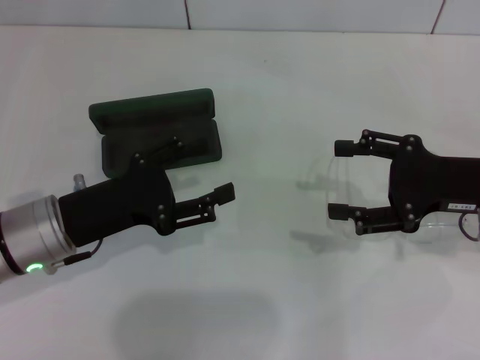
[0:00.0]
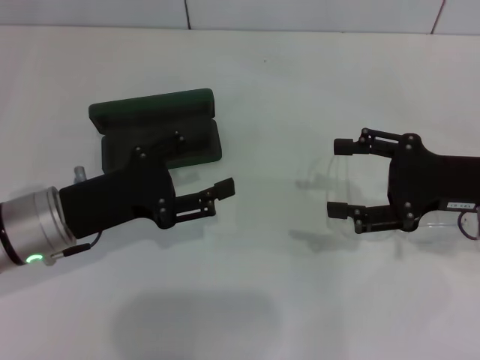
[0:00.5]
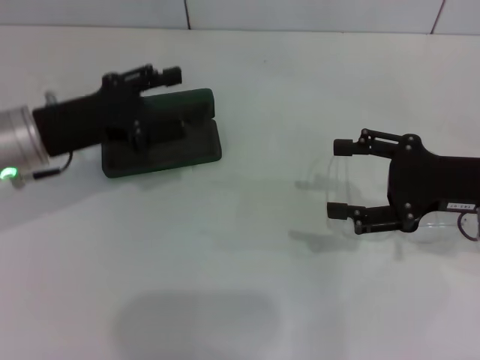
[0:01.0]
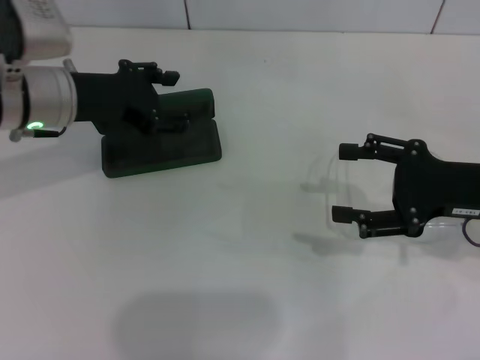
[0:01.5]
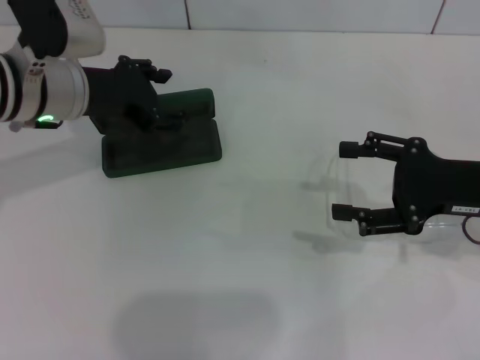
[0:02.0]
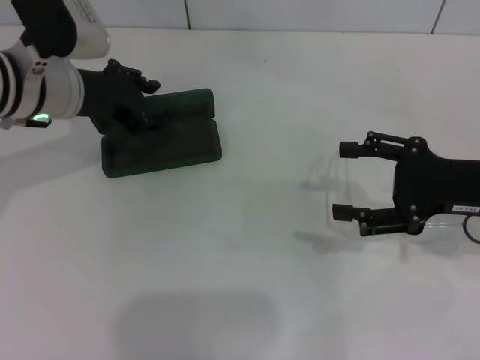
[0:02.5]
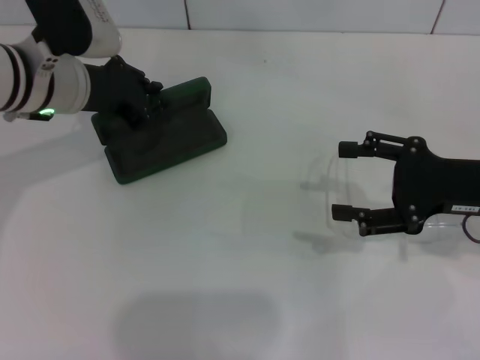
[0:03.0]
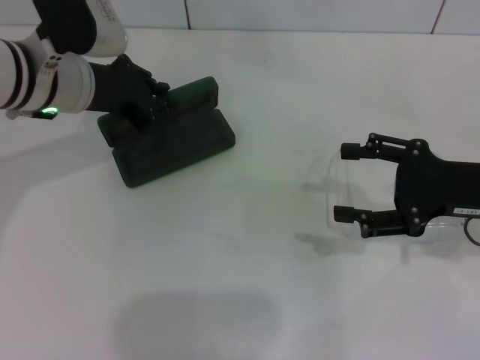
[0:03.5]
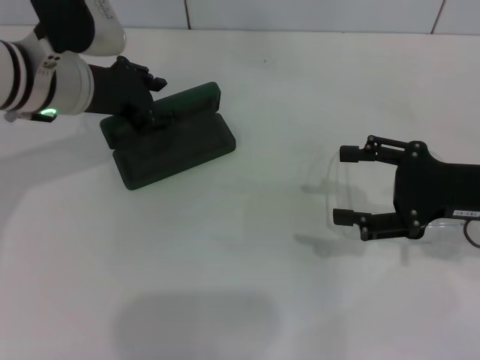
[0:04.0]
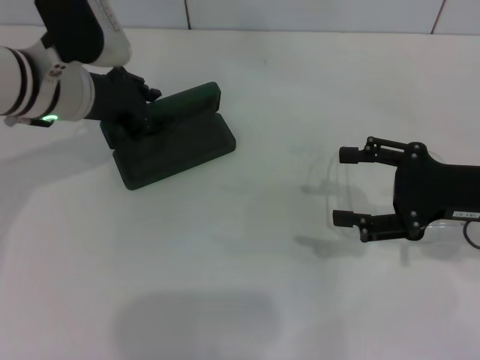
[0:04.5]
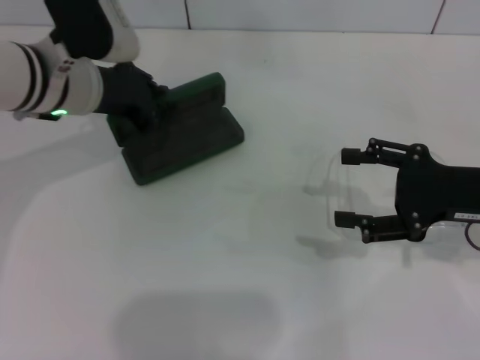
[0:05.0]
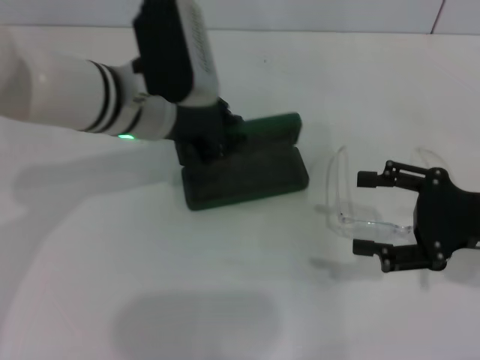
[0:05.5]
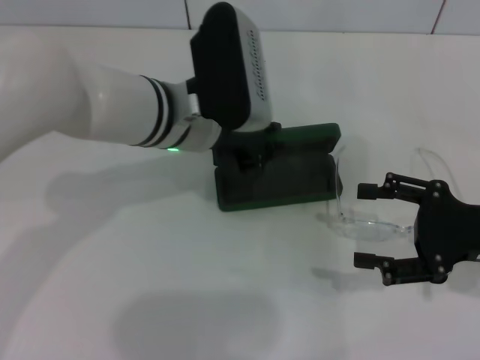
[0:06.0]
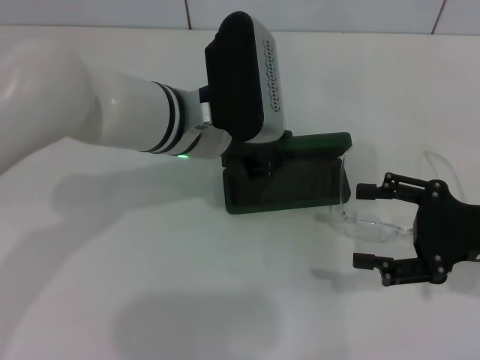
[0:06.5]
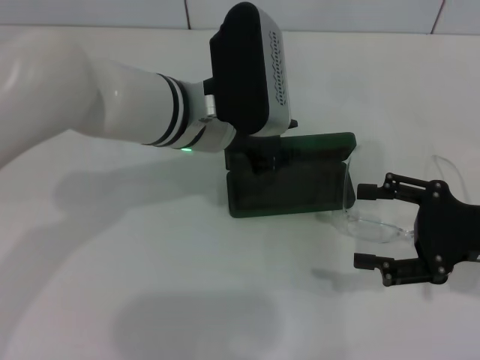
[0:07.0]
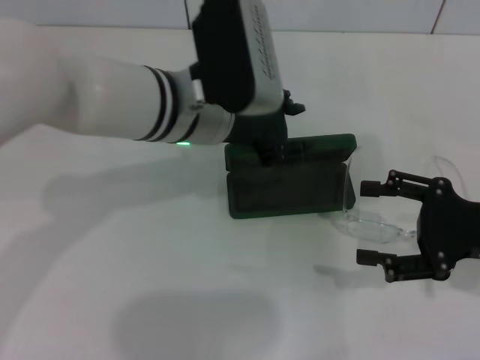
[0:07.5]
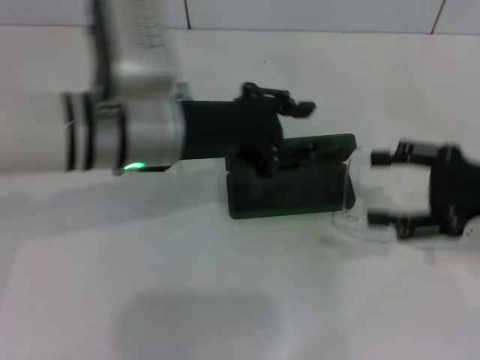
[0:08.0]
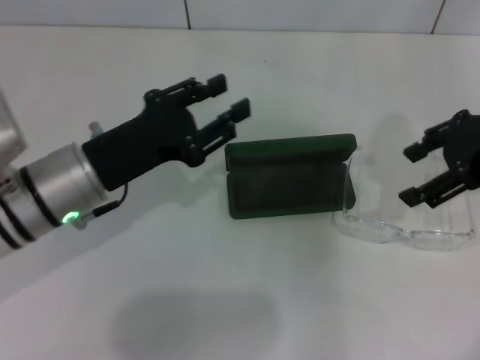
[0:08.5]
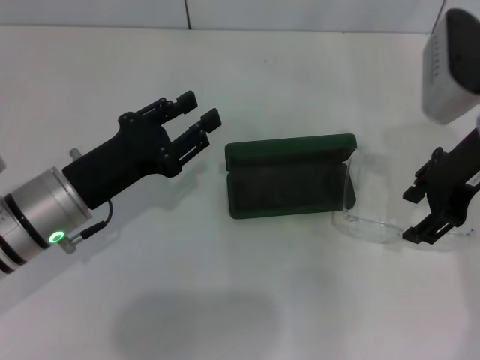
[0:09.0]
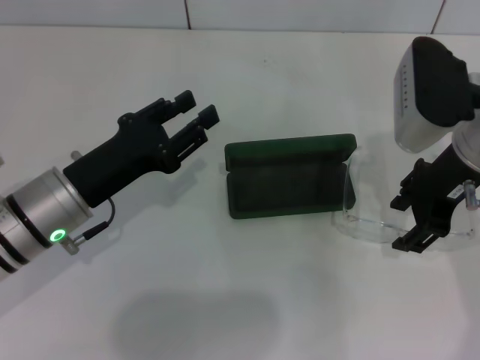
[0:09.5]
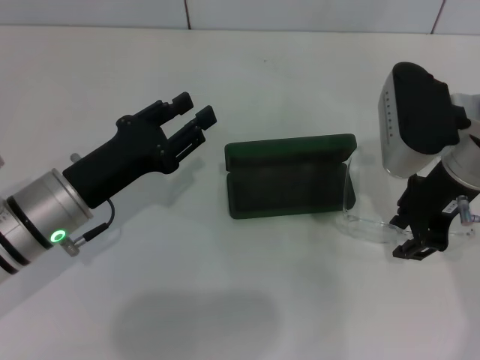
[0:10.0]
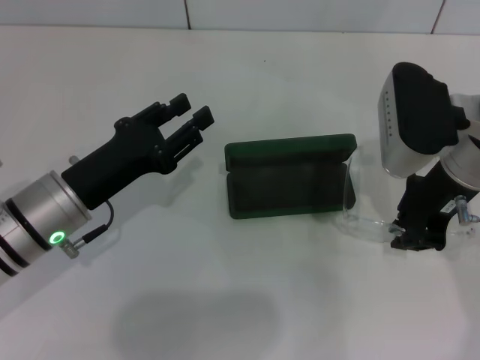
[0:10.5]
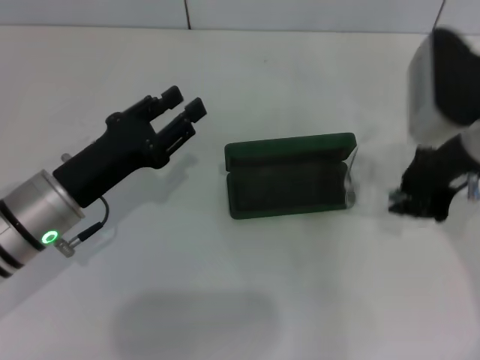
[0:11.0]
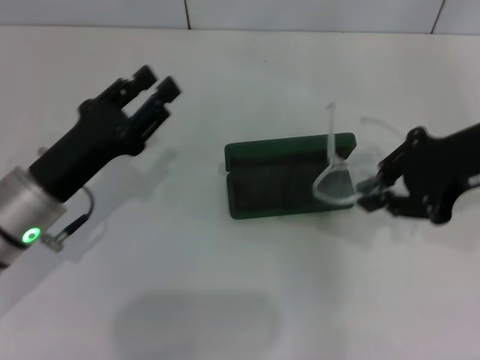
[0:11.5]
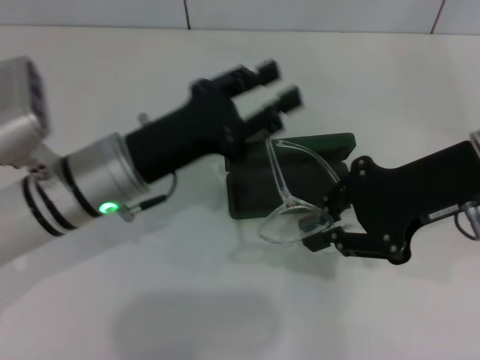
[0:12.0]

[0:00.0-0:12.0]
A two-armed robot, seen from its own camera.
Step, 0:00.0 to 0:03.0: Grab the glasses case with your left hand.
Step, 0:03.5 to 0:07.0: Place the glasses case in the center of the table with your left hand.
Step, 0:07.5 to 0:10.5: Grab the eyeglass frame with your right hand.
0:00.0 to 0:02.0: The left gripper shifts some 15 cm forward and upward.
0:02.0 to 0:04.0: The left gripper closes.
0:04.0 to 0:06.0: The left gripper is displaced to the right by about 10 cm, and closes its fingers.
0:06.0 to 0:08.0: The left gripper moves about 5 cm, and opens up.
0:08.0 to 0:10.0: The right gripper moves to the left and forward, approximately 10 cm, while the left gripper goes about 15 cm downward and to the left.
0:10.0 to 0:12.0: The right gripper shifts by about 5 cm, and closes its fingers. The left gripper goes roughly 5 cm to the right.

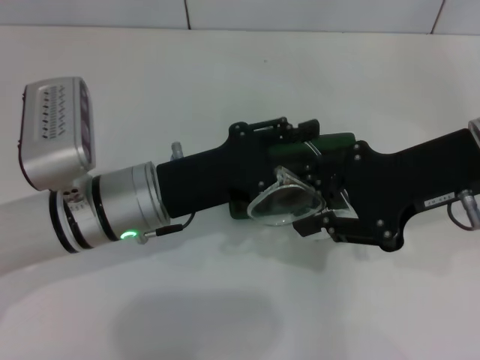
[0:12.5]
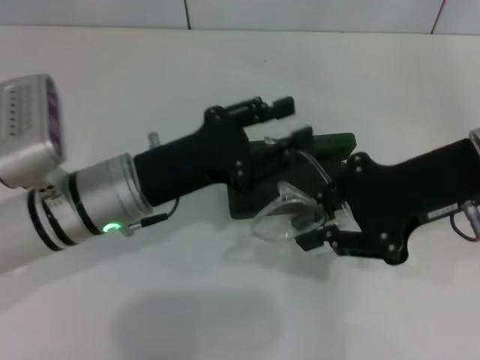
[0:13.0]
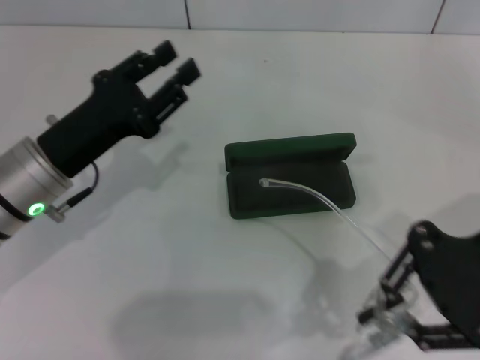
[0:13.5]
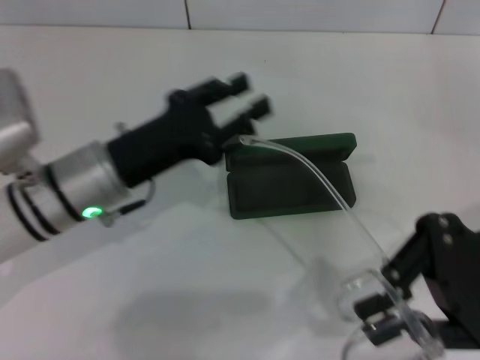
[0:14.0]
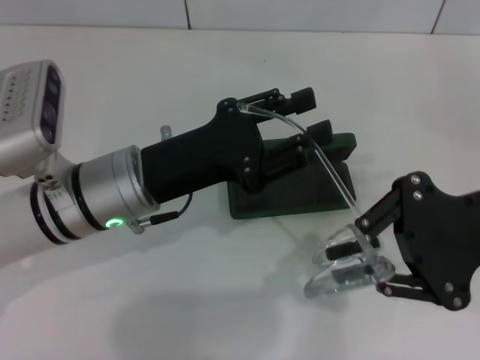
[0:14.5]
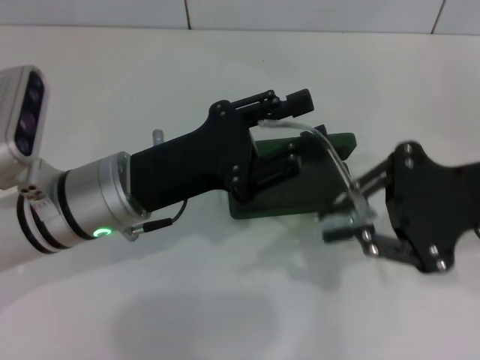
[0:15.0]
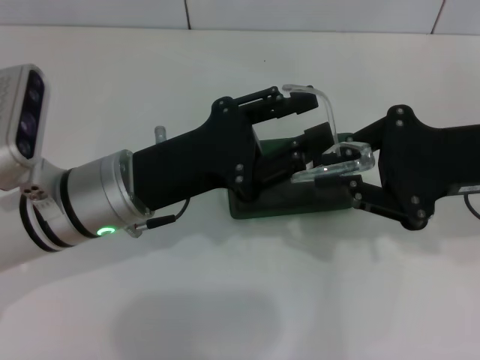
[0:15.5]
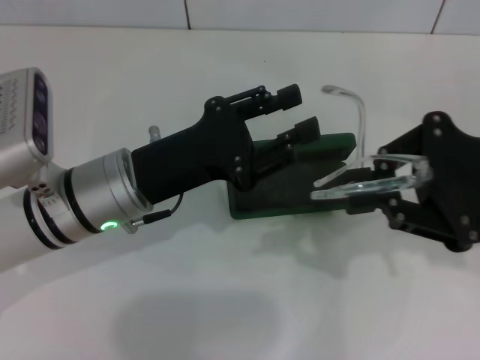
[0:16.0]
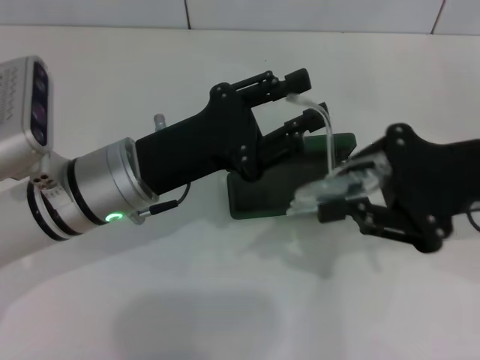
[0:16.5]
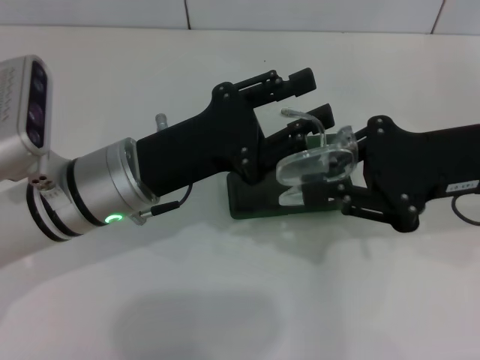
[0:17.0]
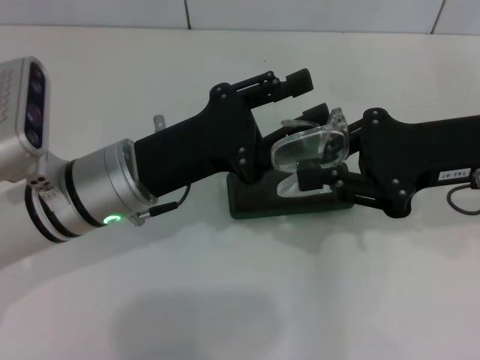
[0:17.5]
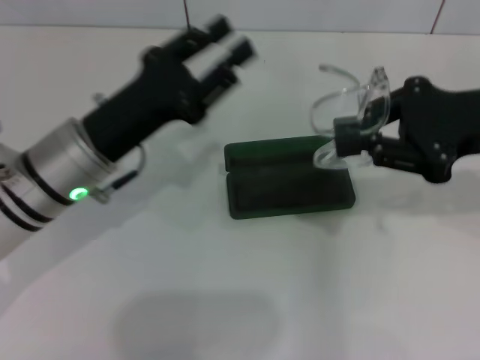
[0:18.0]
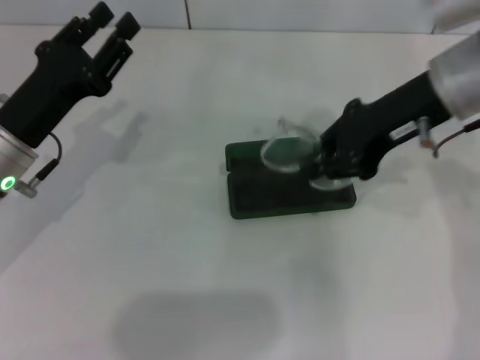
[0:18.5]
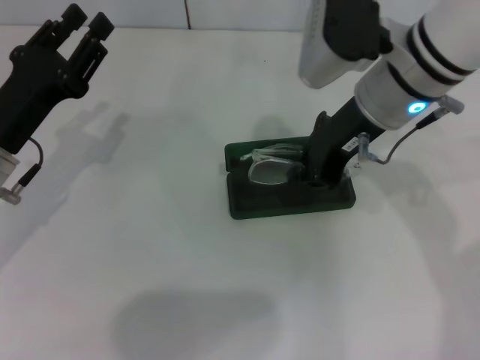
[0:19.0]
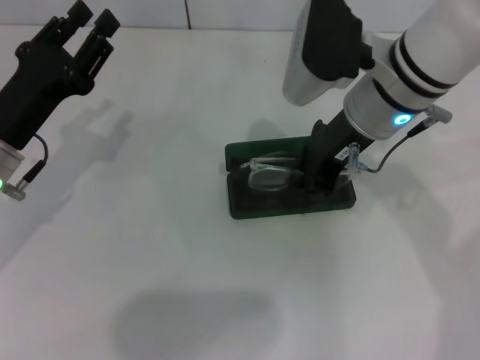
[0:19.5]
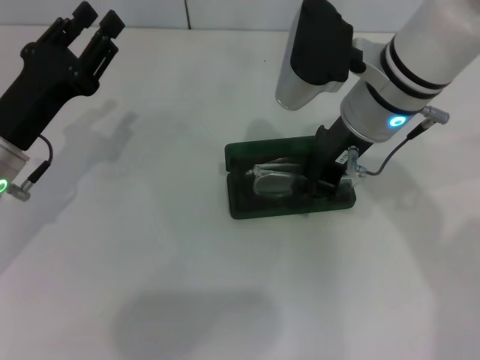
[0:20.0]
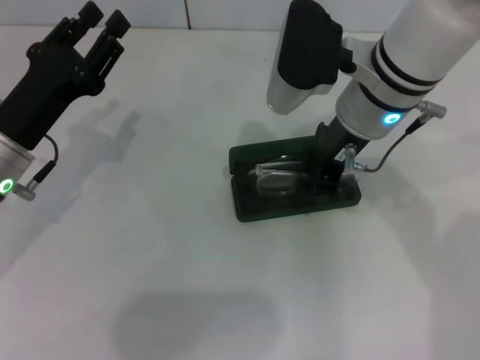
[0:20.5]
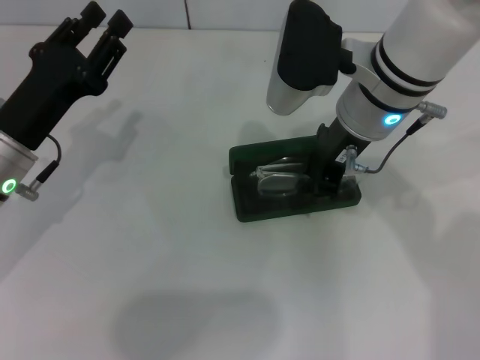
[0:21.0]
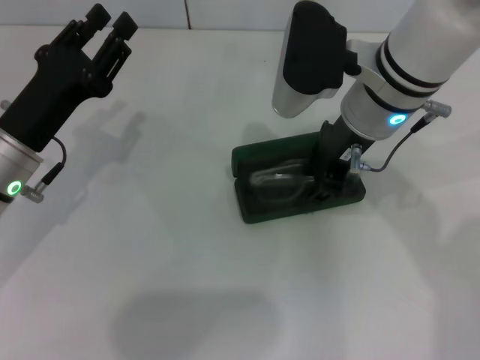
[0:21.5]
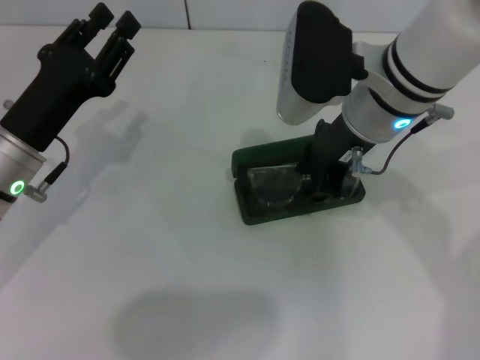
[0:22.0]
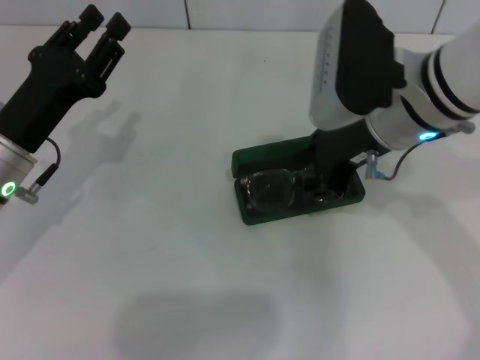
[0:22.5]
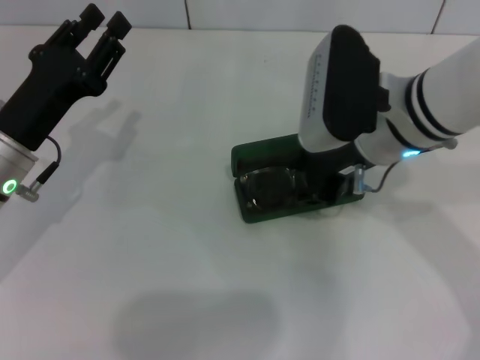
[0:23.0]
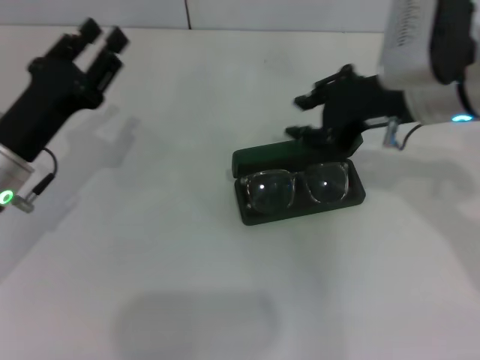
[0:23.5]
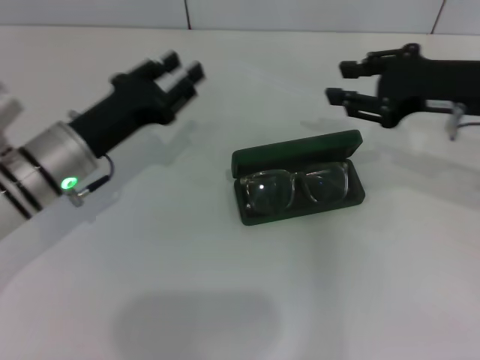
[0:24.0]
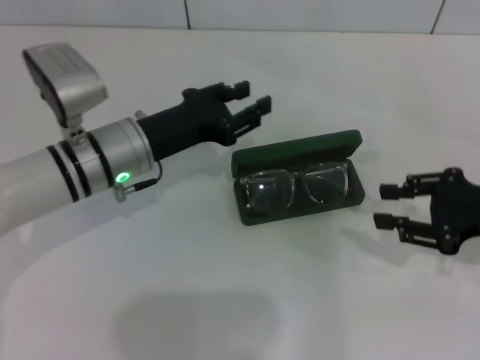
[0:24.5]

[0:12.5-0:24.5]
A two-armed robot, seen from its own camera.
Step, 0:12.5 to 0:17.5: Fold the frame with your left hand.
Step, 0:18.0 to 0:21.5: Put the glasses into the case with your right hand.
0:12.5 to 0:14.5: The left gripper travels to the left and back again, roughly 10 cm each way.
0:16.5 to 0:18.5: The left gripper travels to the left by some 10 cm. Meanwhile the right gripper is displaced forward and to the left by some 10 cm.
0:18.5 to 0:20.5: The right gripper is displaced to the left by approximately 10 cm.
0:20.5 to 0:22.5: The right gripper opens.
0:22.5 to 0:24.5: The right gripper heads to the right and downward, covering some 20 cm; the left gripper is displaced to the right by approximately 10 cm.

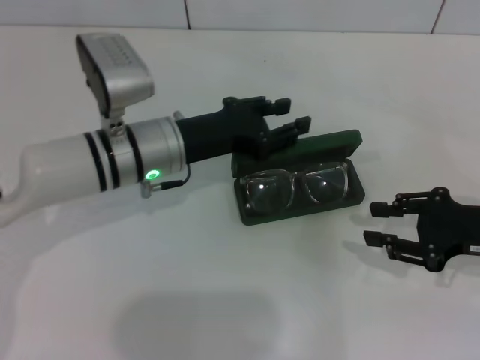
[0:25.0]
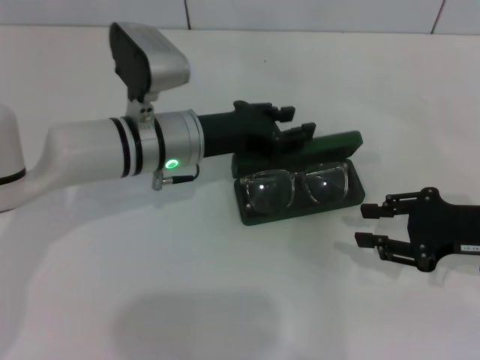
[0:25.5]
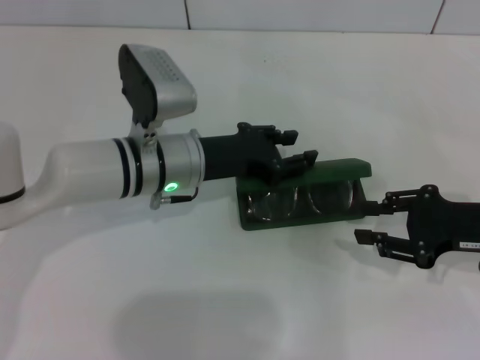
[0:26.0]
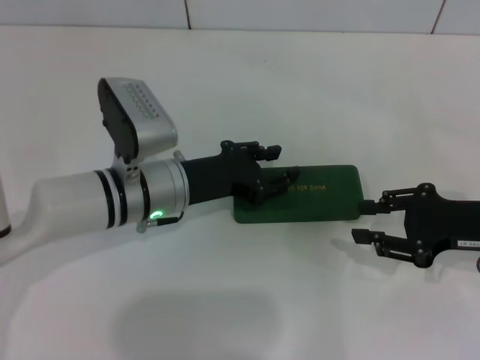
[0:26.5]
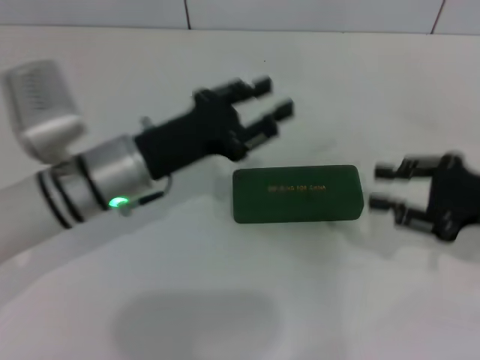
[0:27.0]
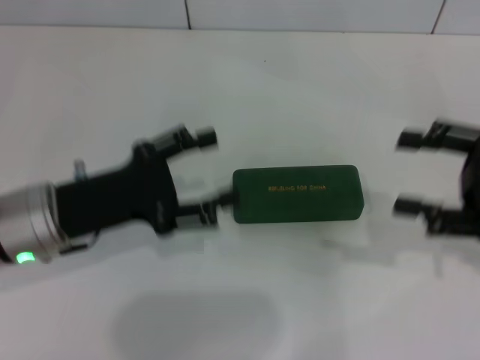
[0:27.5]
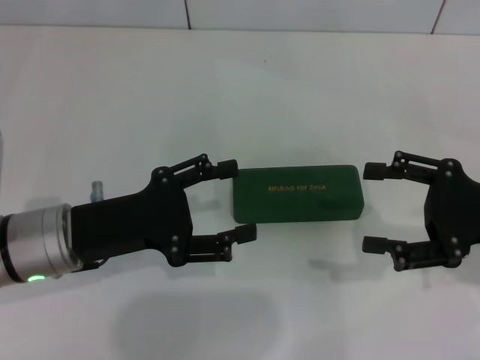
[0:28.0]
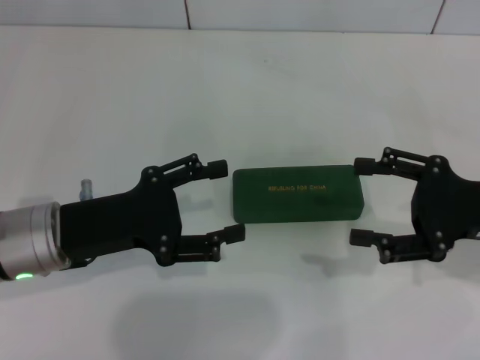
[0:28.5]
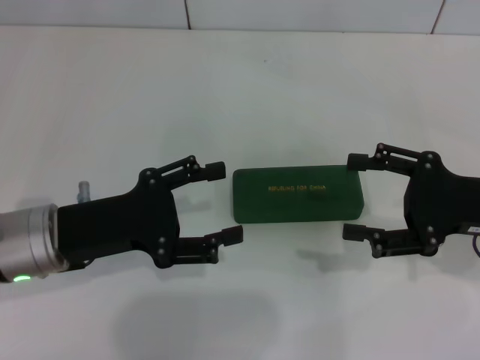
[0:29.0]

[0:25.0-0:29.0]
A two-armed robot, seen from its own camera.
0:25.0 to 0:27.0: The left gripper changes place by some 5 cm.
0:27.0 to 0:29.0: The left gripper heads to the left and backward, covering roughly 10 cm, and opens its fingers, while the right gripper opens.
